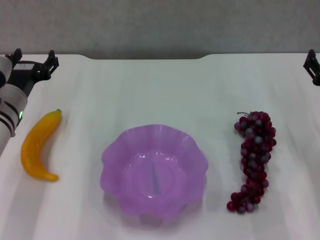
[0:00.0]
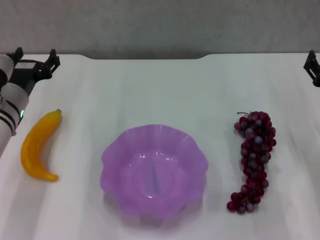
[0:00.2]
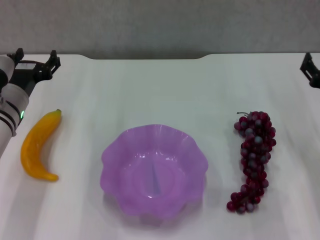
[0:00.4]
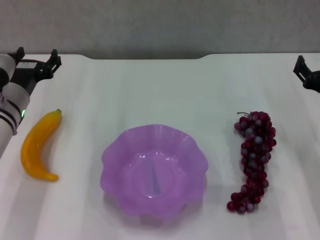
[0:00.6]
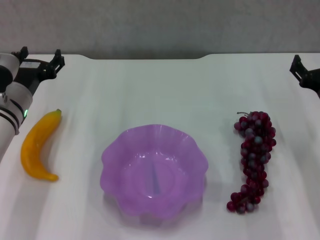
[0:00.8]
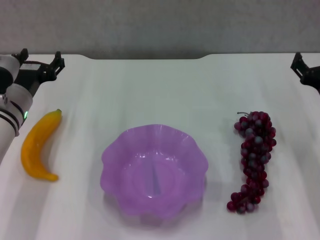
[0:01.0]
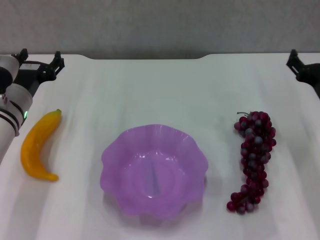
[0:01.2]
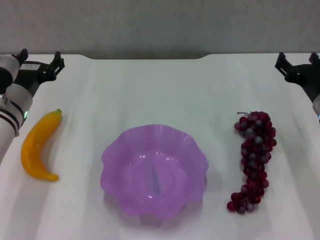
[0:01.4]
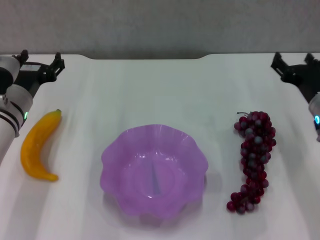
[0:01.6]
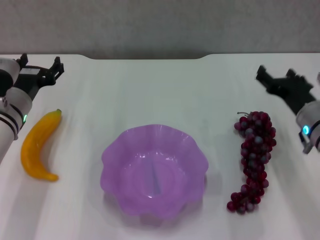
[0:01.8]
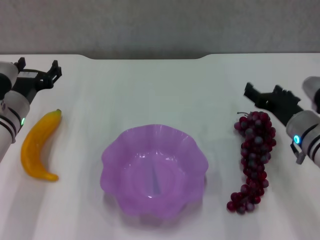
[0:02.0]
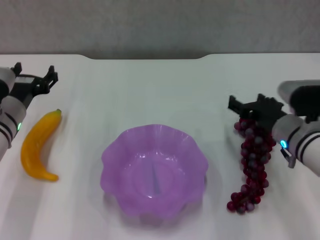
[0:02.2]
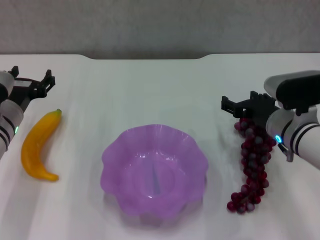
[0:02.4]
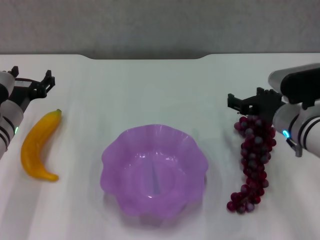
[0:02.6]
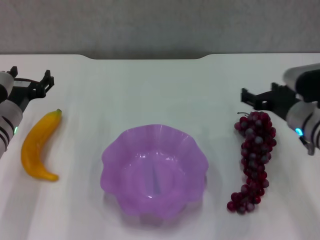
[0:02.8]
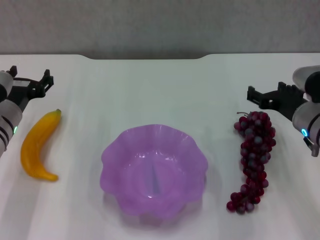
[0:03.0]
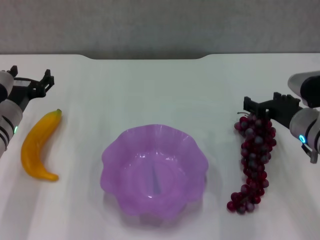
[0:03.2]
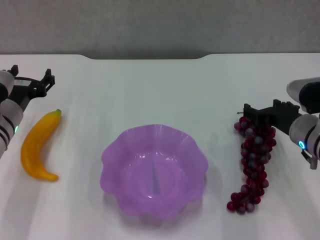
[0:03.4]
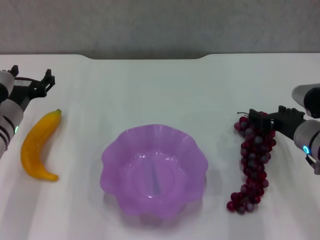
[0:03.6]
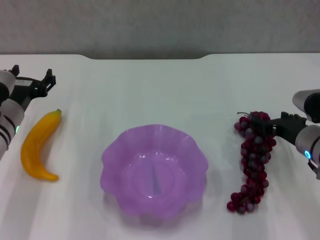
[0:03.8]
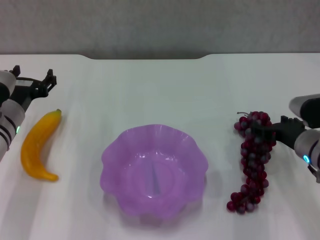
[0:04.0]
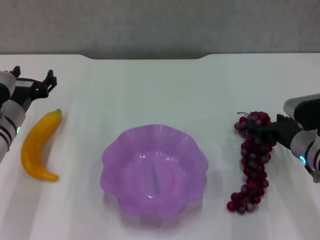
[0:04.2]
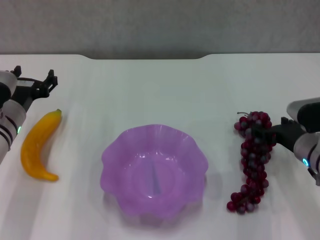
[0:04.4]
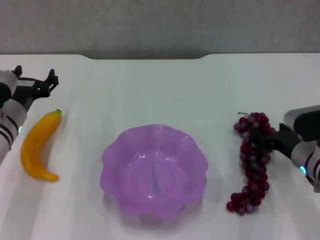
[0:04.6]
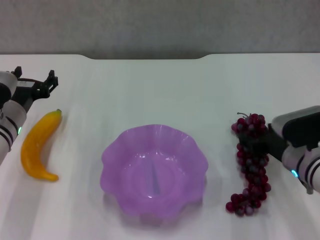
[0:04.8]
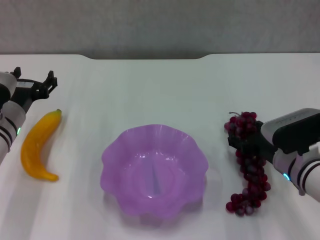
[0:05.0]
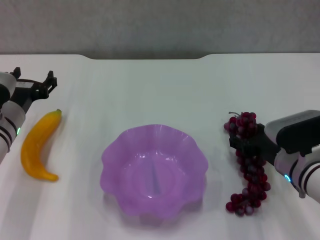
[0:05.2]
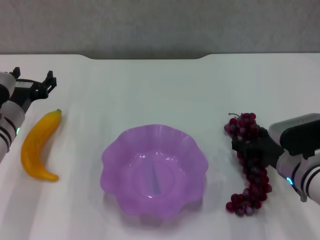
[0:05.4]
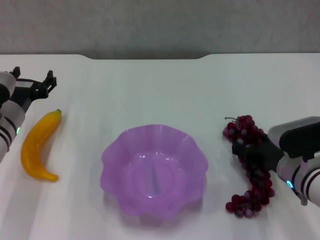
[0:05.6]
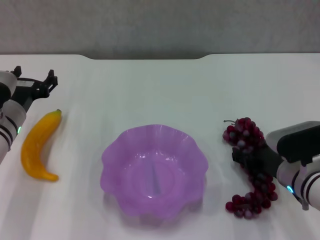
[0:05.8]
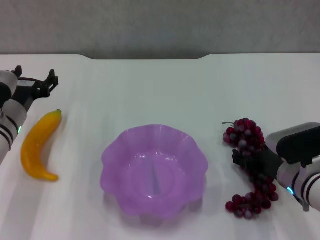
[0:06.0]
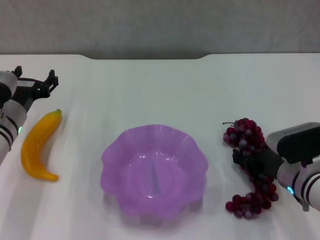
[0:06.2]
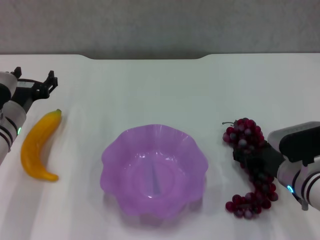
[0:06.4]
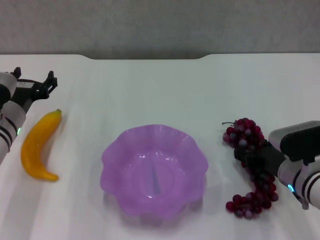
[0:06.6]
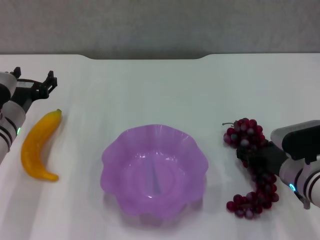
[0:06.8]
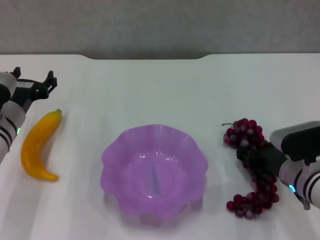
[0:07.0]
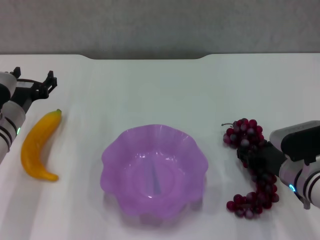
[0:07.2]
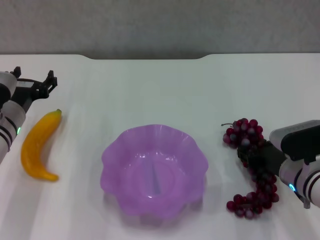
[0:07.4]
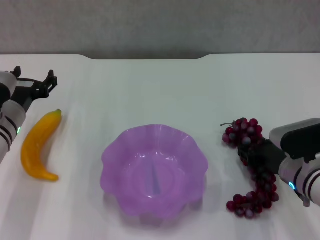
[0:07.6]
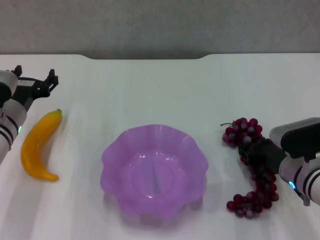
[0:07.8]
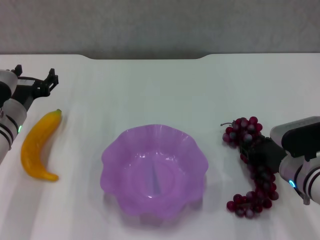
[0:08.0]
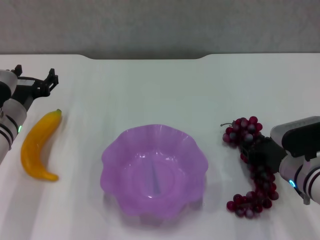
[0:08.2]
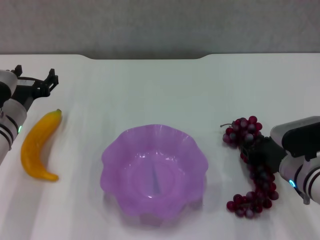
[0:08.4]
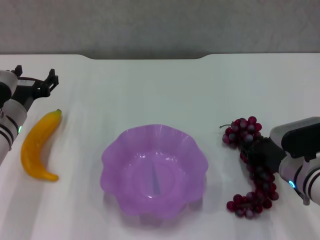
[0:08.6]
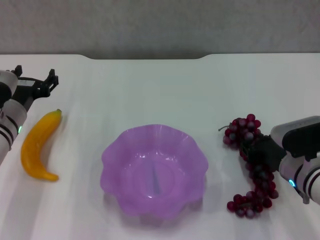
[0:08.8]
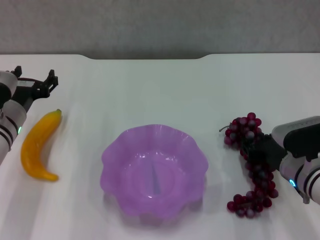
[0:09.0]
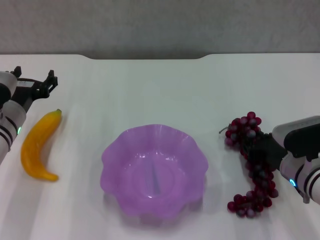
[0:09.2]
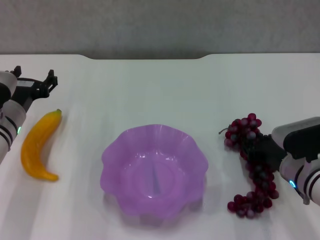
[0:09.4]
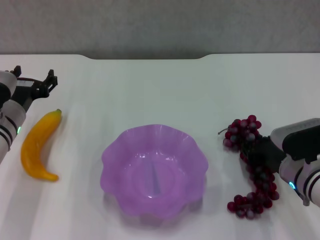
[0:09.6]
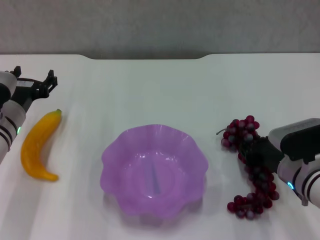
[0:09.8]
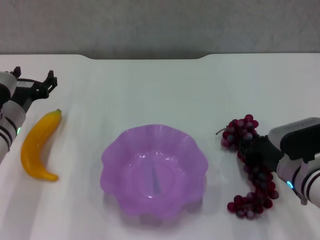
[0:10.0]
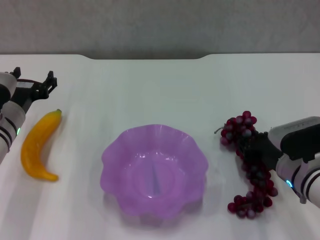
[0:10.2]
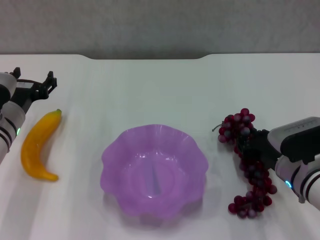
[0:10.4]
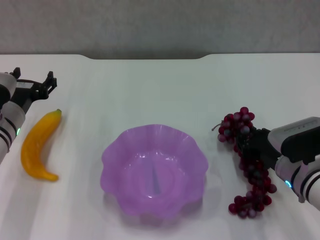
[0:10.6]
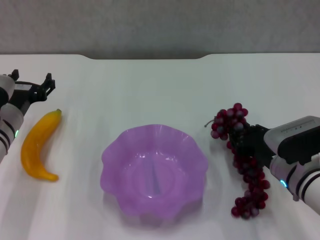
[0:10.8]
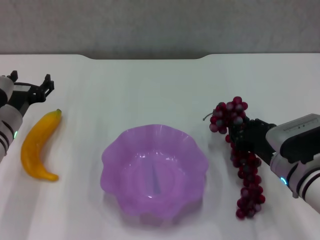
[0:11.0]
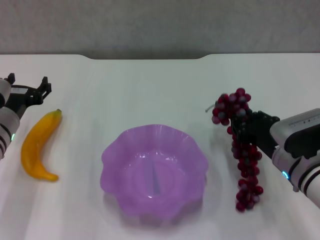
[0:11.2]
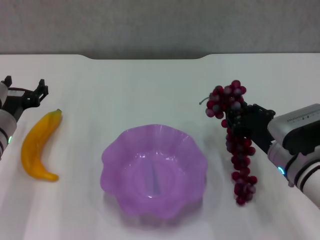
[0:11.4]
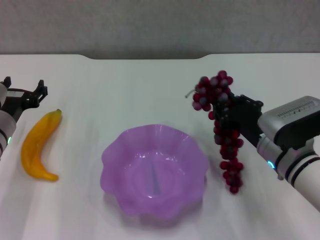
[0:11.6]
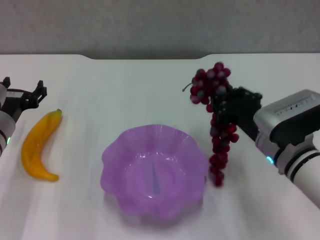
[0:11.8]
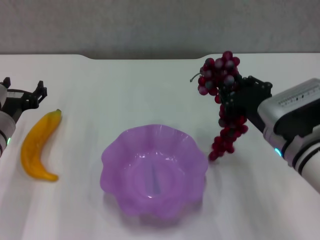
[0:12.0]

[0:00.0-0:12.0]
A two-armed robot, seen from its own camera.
Step, 0:00.0 to 0:08.2: Grasp the grape with right gripper.
0:00.0 to 0:01.6: The grippers make only small movements.
0:03.0 to 0:04.4: The grippers stay close to where they were, moving slightly.
0:04.4 to 0:06.0: The grippers move only a little.
0:06.0 to 0:07.6: The right gripper closes up.
0:07.6 to 0:09.0: The right gripper closes.
0:09.0 to 0:10.4: Neither gripper changes place.
0:10.4 to 0:12.0: The right gripper is displaced upward by roughly 10 cm.

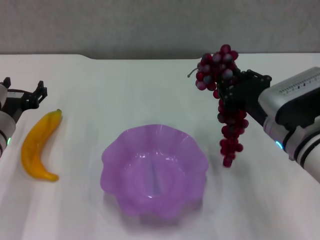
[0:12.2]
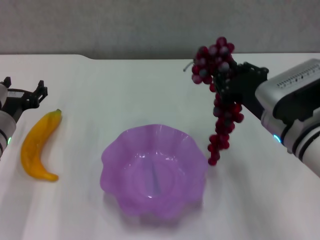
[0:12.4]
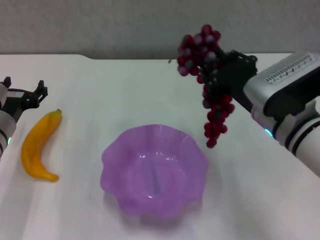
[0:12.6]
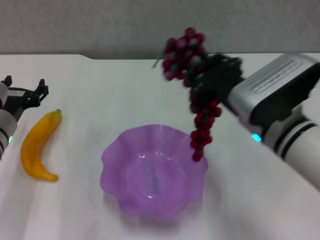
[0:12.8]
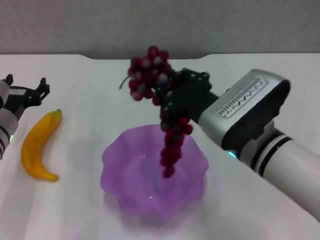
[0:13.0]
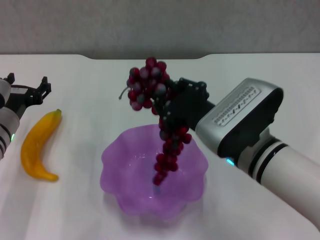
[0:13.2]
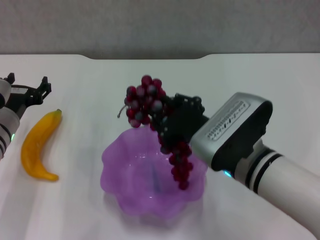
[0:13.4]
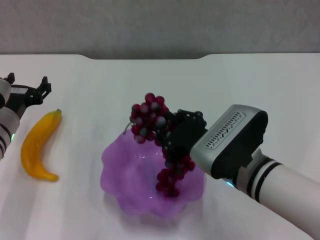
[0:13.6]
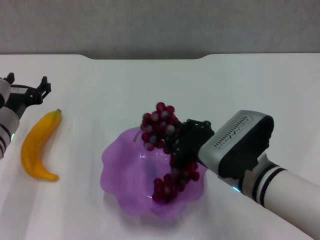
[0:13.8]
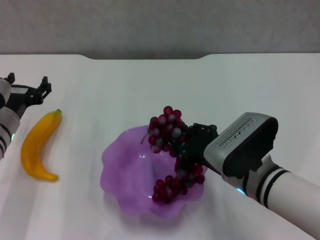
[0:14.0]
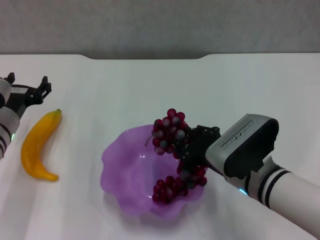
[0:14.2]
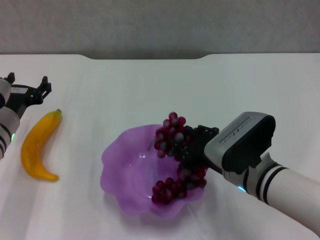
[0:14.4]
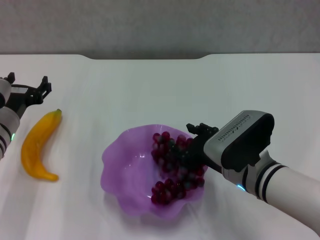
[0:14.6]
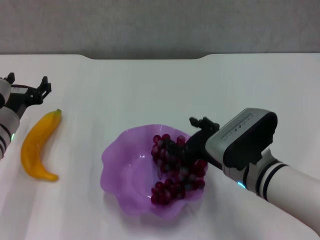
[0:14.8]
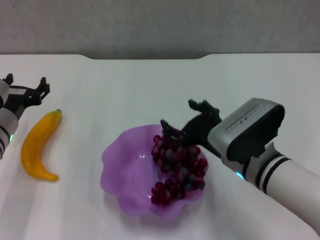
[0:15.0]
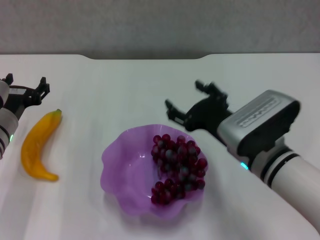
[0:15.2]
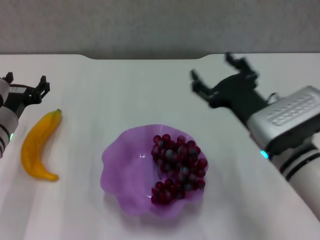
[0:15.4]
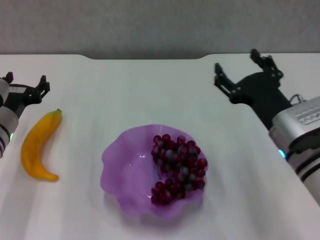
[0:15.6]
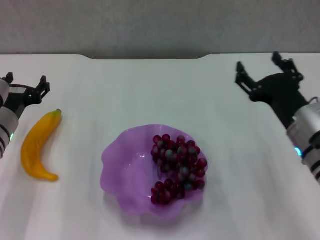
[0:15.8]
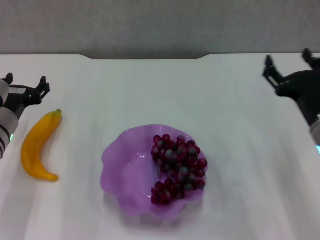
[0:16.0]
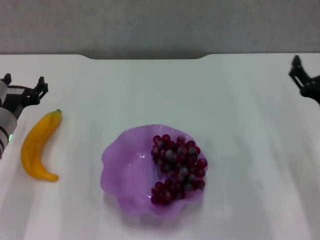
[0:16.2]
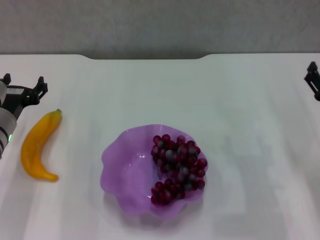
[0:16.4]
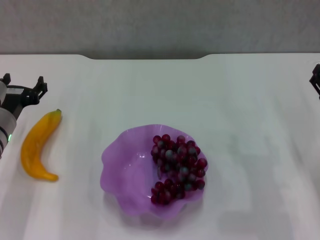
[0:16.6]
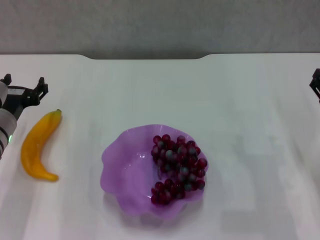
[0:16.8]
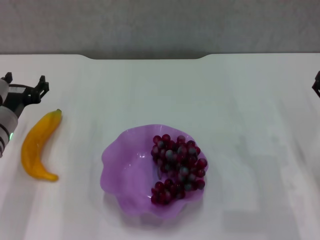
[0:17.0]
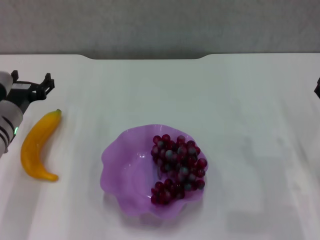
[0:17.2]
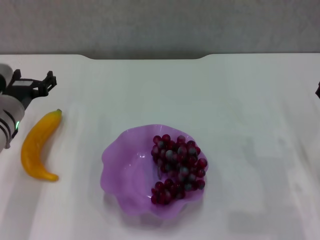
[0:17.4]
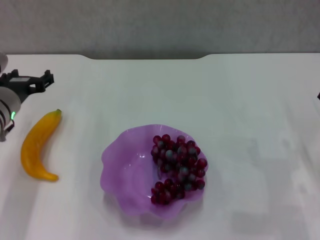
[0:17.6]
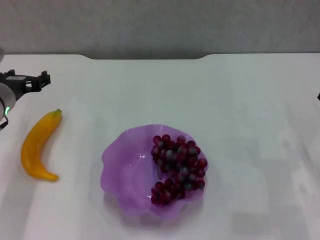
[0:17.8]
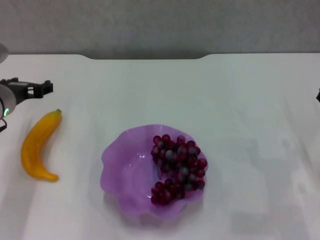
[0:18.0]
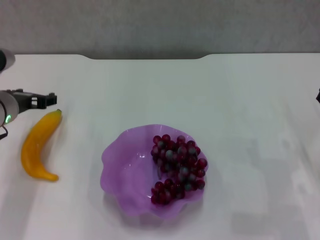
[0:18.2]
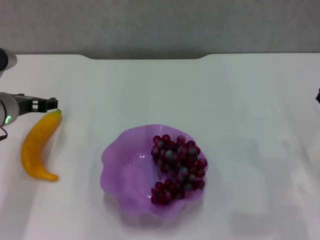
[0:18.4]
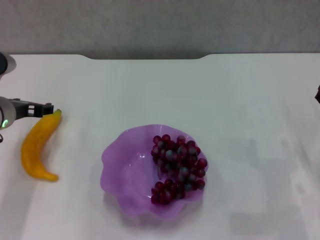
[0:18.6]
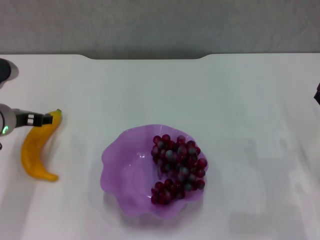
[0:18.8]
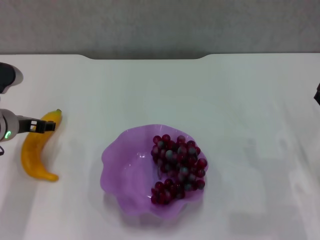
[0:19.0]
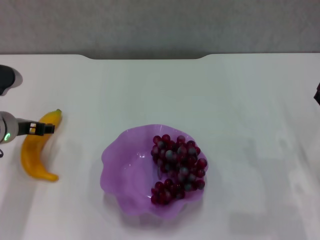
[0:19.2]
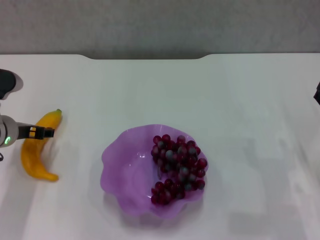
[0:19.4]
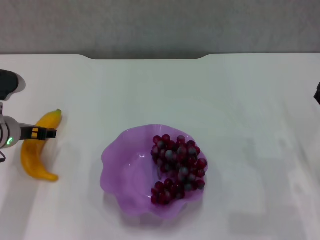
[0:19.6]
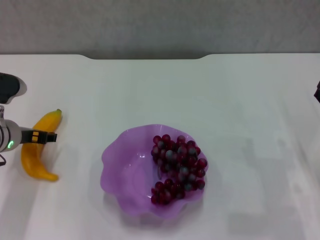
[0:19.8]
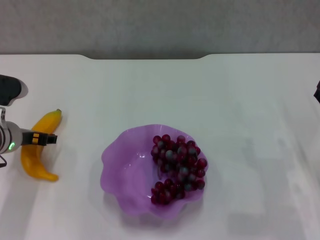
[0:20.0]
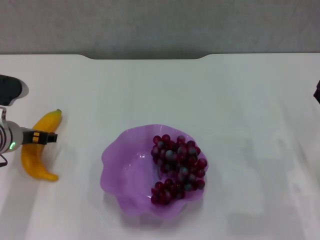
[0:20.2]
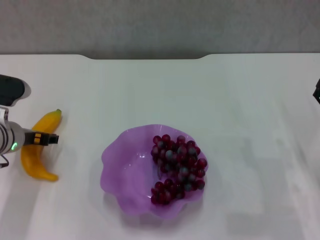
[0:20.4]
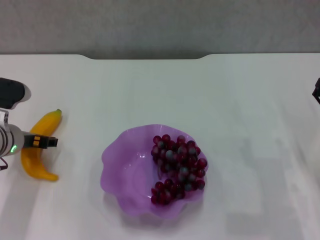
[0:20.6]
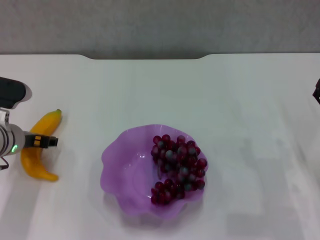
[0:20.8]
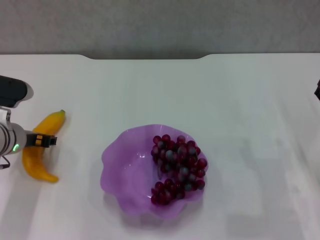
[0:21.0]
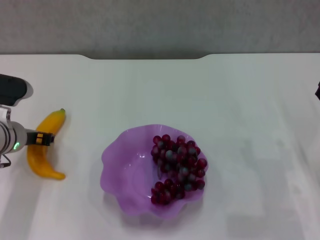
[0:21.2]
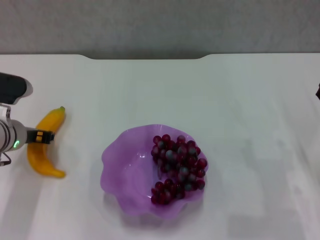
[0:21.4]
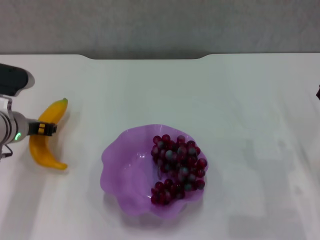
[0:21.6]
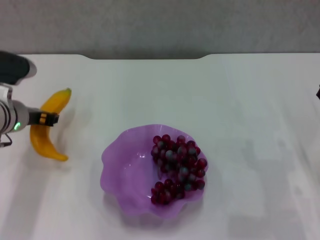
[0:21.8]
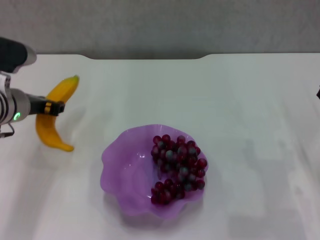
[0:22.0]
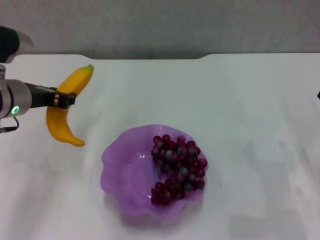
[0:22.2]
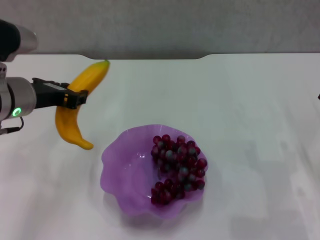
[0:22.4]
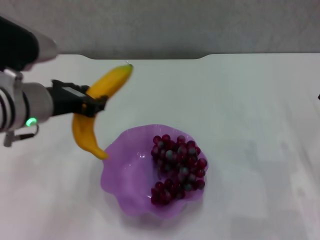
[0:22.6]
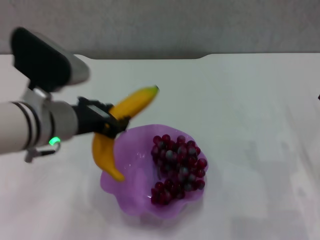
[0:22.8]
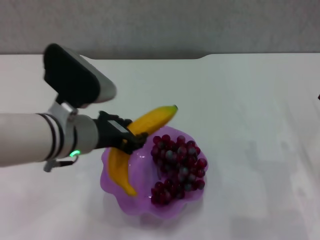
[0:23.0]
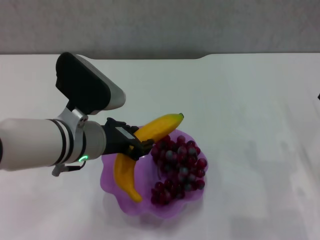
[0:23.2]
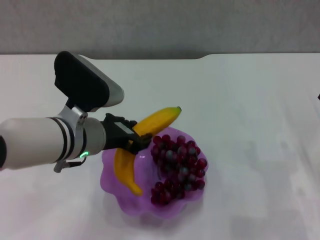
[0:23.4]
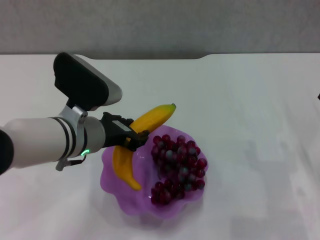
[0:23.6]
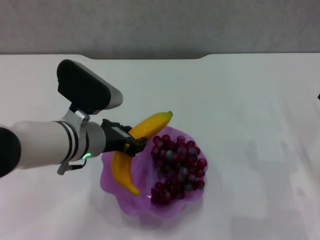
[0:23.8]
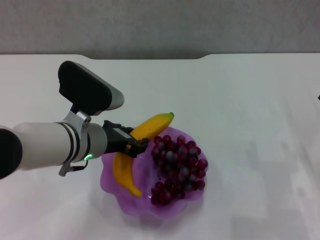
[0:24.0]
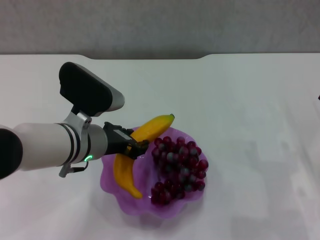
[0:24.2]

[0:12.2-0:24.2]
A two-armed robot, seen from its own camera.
Step, 0:12.2 to 0:14.6: Place the grape in the purple plate with right gripper.
Step, 0:14.8 to 0:21.2: Grasp the banana with left gripper.
0:12.2 to 0:13.8: The right gripper is displaced to the left by approximately 5 cm.
0:13.8 to 0:15.2: The right gripper opens its fingers.
0:15.2 to 0:16.6: The right gripper is displaced to the right by about 15 cm.
0:16.6 to 0:18.2: The left gripper shifts by roughly 5 cm.
0:18.2 to 0:19.8: The grippers stay close to where they were, moving slightly.
0:19.8 to 0:21.2: The left gripper closes.
0:21.2 to 0:22.6: The left gripper is displaced upward and to the right by approximately 15 cm.
0:22.6 to 0:24.2: The left gripper heads downward and to the right, covering approximately 10 cm.
